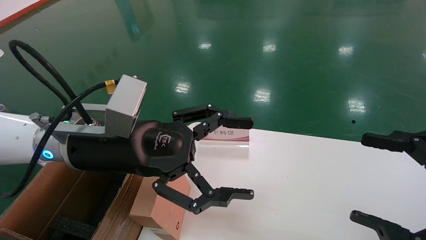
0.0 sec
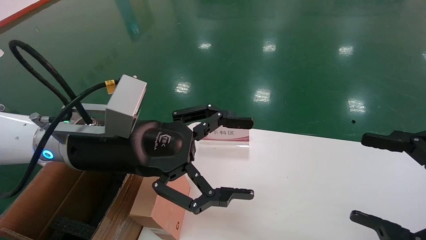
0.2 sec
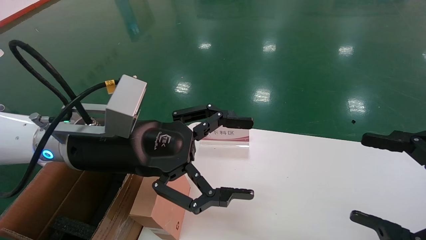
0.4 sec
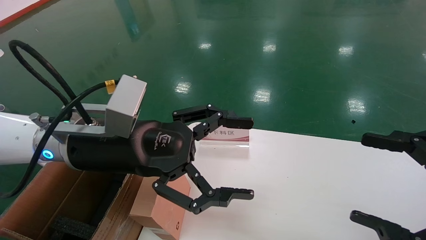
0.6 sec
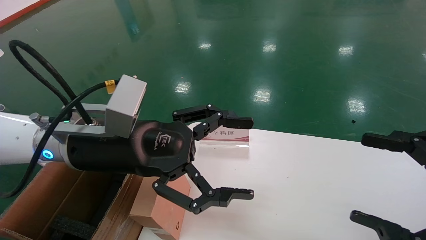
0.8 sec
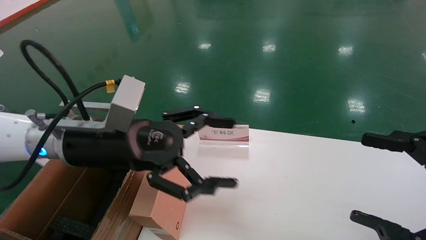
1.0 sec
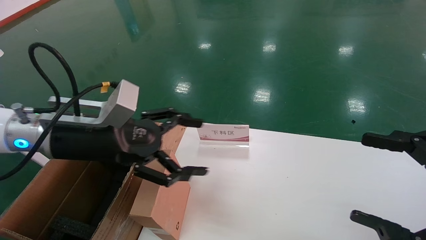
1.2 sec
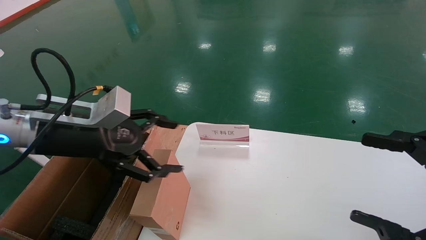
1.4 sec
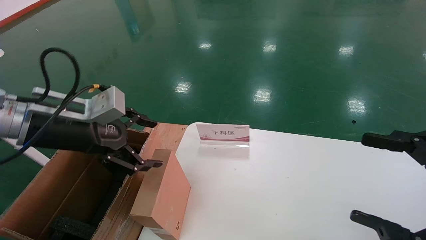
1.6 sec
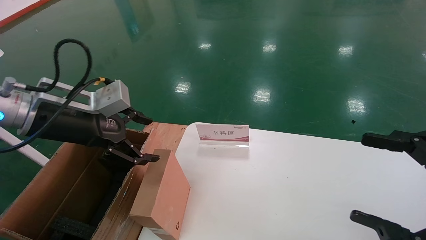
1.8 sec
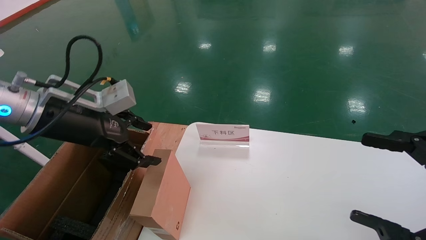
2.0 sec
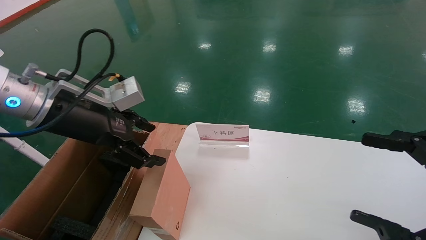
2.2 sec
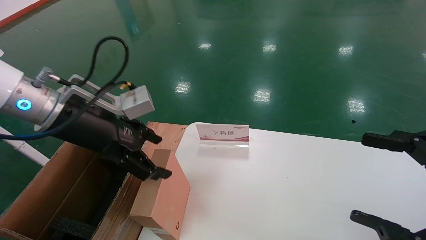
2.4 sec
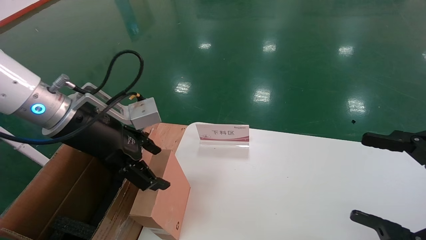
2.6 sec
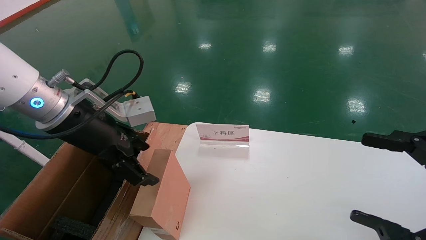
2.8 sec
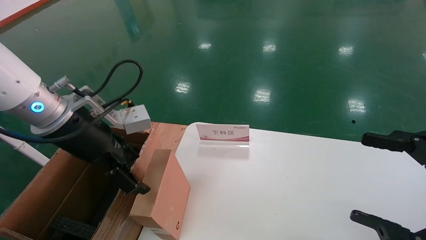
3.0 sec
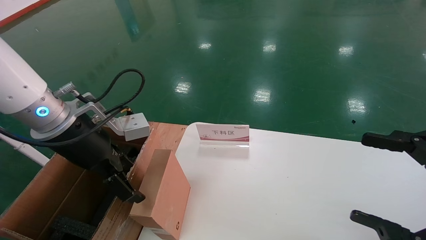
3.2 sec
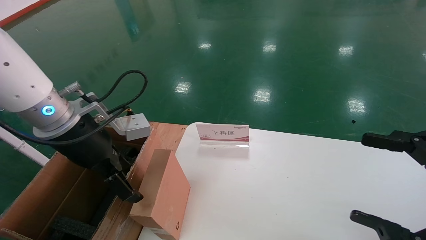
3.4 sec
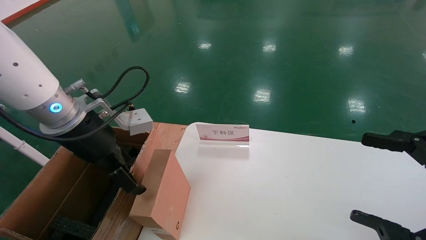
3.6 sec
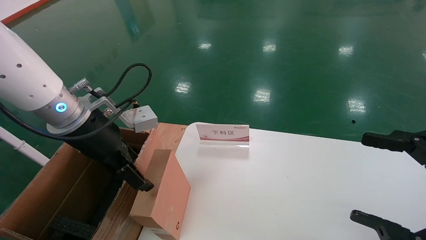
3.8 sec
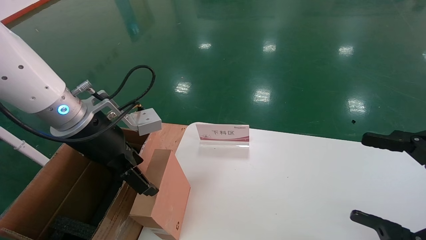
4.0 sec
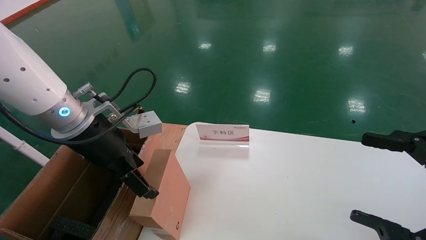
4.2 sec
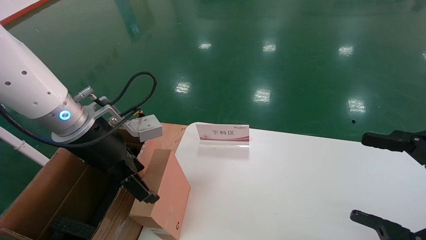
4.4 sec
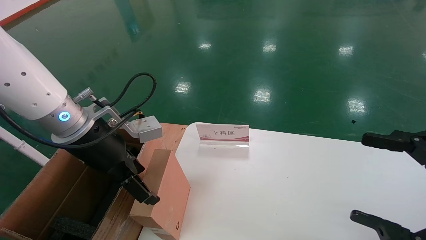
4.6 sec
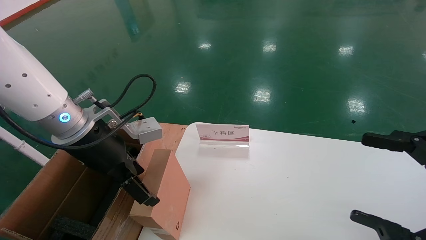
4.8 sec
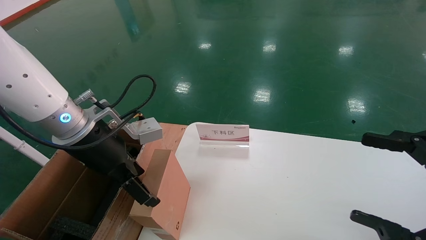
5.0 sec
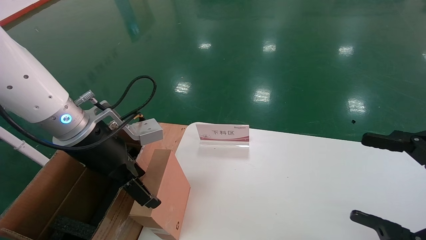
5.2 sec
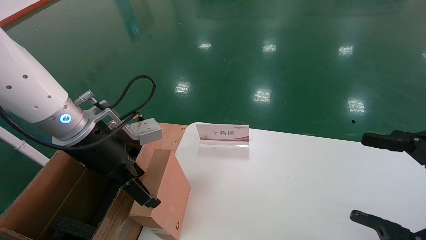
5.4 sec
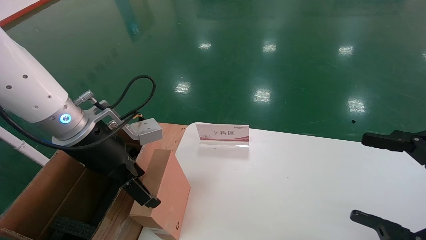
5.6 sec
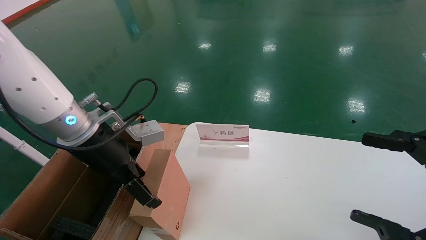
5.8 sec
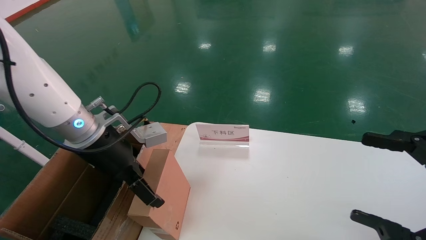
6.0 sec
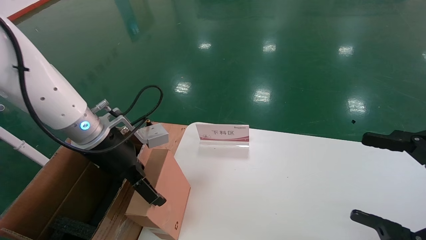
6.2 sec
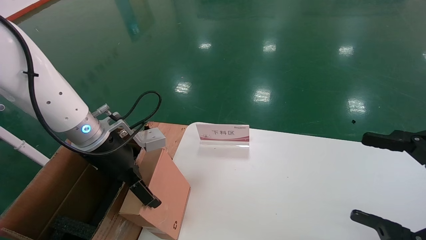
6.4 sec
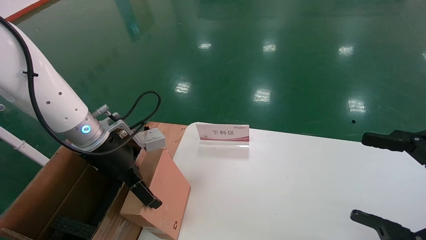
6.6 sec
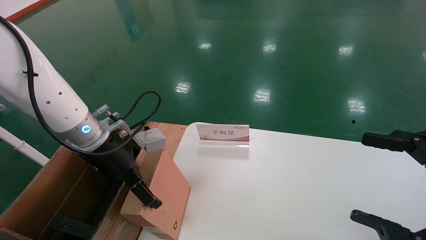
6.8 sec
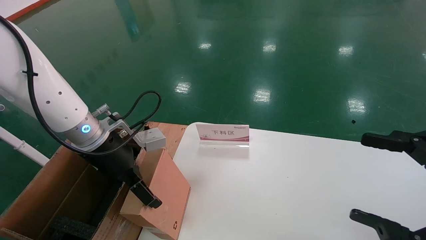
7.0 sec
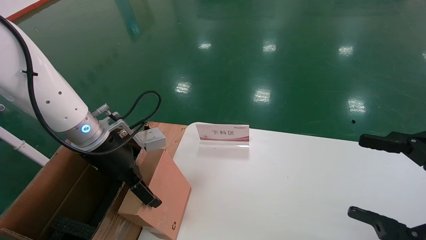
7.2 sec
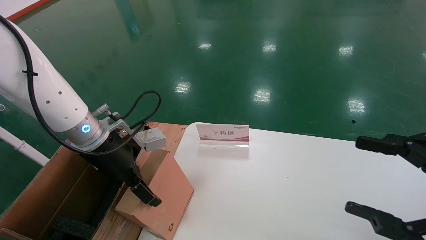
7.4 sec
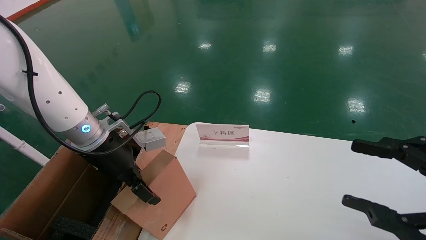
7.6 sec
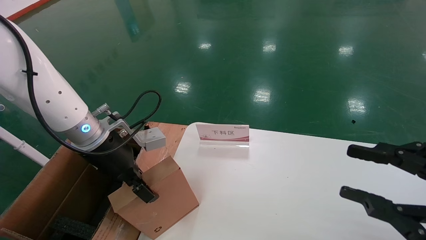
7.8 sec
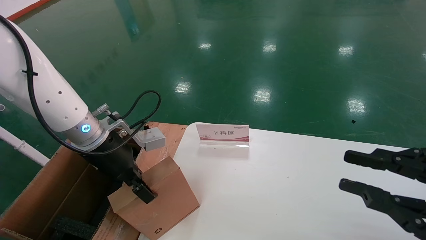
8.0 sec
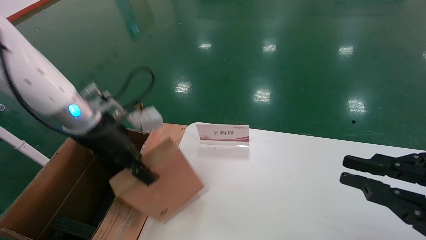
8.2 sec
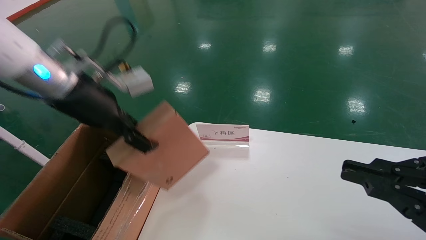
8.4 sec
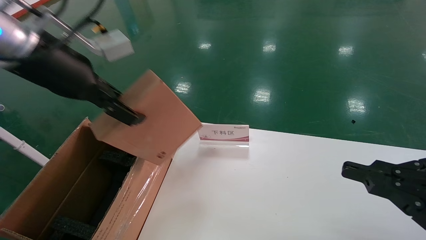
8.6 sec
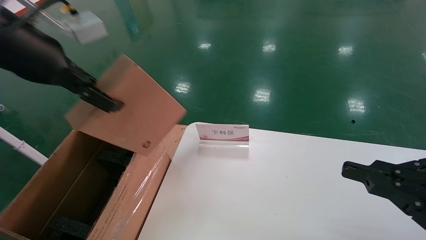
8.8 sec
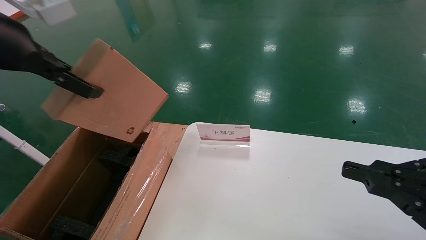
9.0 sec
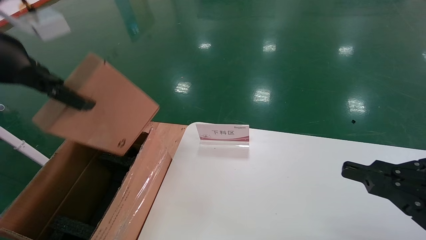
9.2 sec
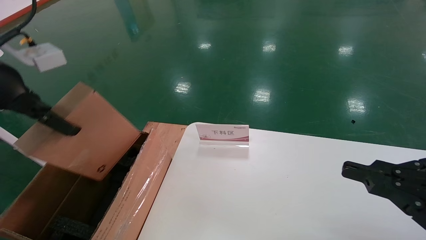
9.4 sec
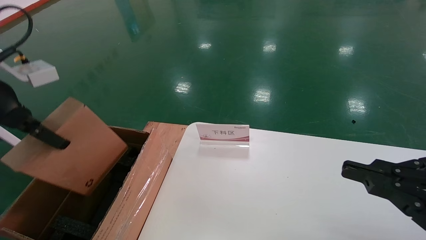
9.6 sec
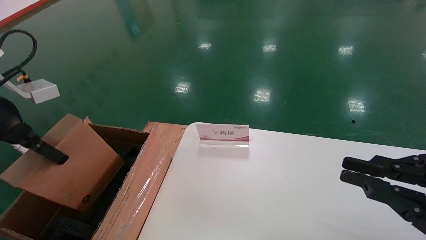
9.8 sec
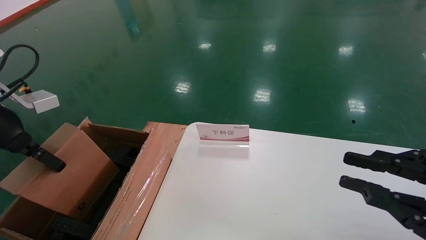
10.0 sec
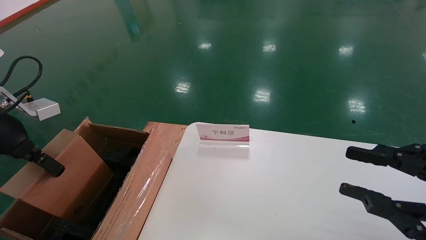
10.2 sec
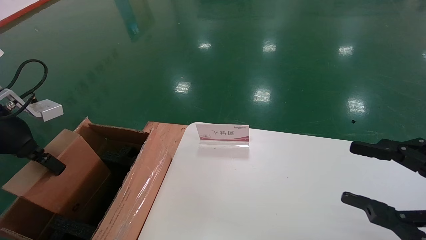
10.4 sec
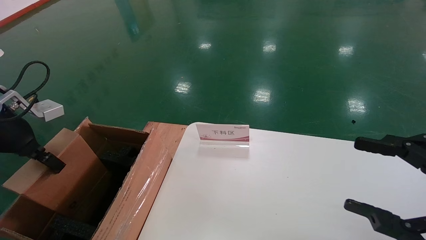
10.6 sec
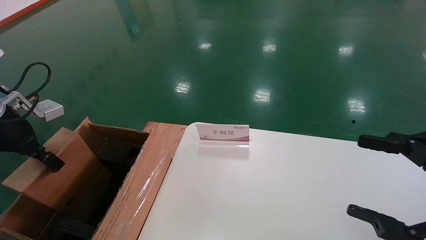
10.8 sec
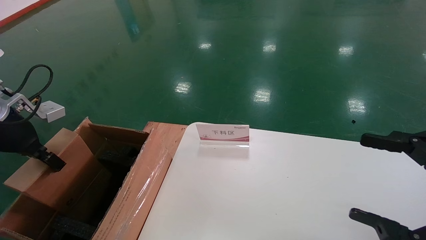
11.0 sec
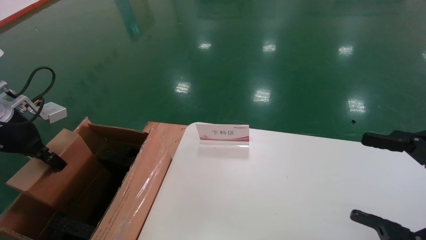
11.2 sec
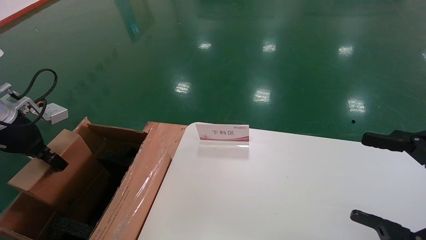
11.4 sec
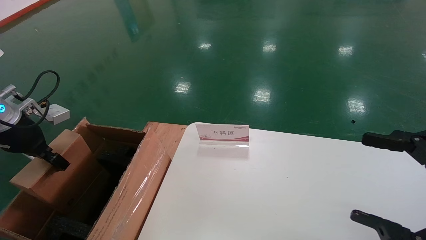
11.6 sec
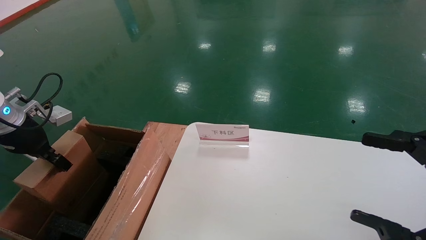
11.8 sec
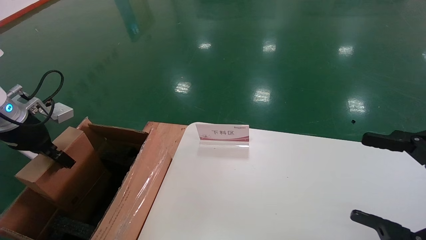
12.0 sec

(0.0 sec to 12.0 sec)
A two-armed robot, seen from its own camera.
Task of the whole recording: pick up the small cardboard box and load it into the large cardboard box.
Step, 1.2 sec - 7.6 sec: Pick up the mouse and power cord box.
0.0 sec - 1.6 sec: The left gripper shifts some 10 cm to the left.
3.0 sec - 6.0 sec: The grippers make only small movements.
6.0 sec - 7.6 sec: The left gripper closes up.
7.6 sec - 9.0 sec: The right gripper closes up; the left gripper heads upward, backward and to the left, covering roughly 25 cm, and closes its fingers.
9.0 sec - 10.4 sec: The right gripper opens up, while the left gripper is displaced downward and to the left by some 15 cm.
10.4 sec - 12.0 sec: The left gripper heads forward, covering some 5 cm. The right gripper opens.

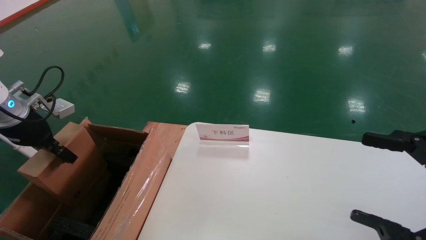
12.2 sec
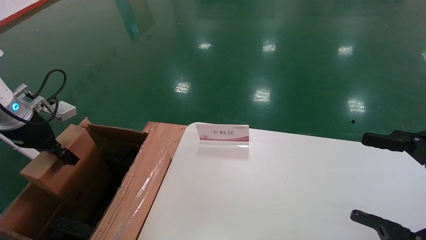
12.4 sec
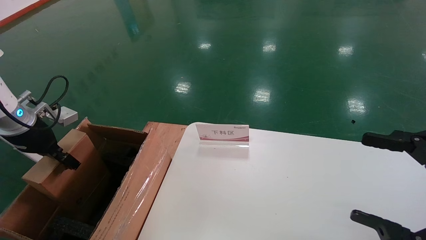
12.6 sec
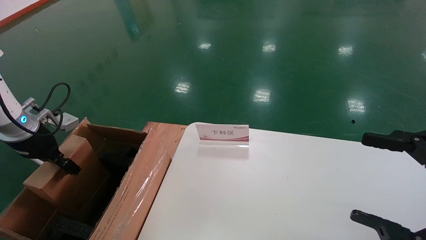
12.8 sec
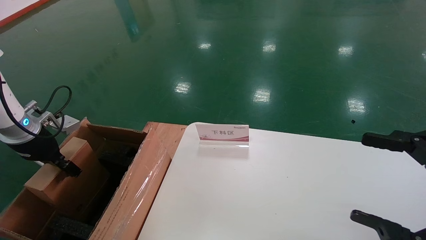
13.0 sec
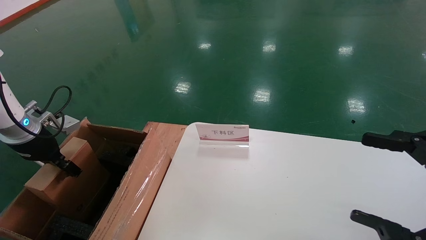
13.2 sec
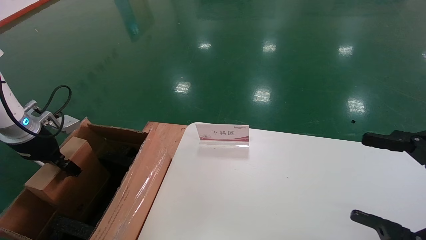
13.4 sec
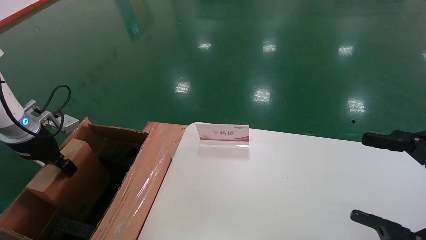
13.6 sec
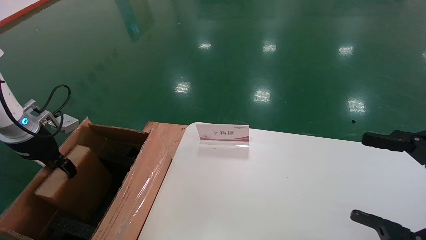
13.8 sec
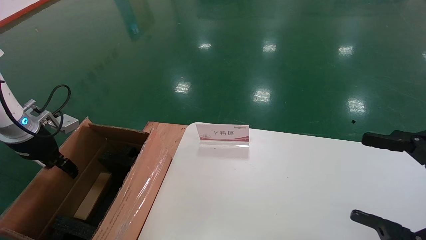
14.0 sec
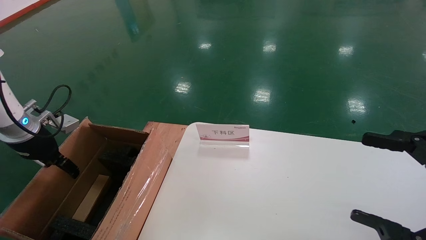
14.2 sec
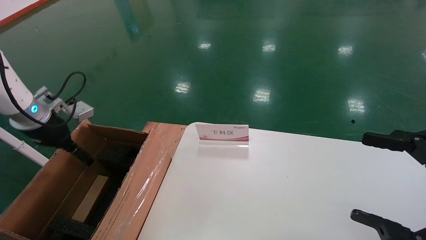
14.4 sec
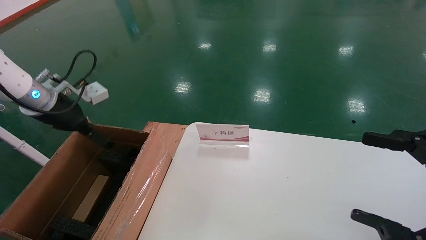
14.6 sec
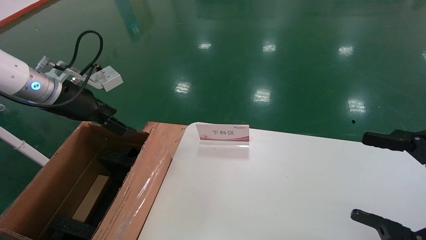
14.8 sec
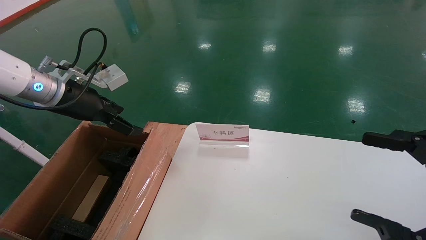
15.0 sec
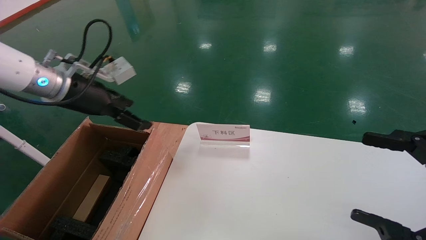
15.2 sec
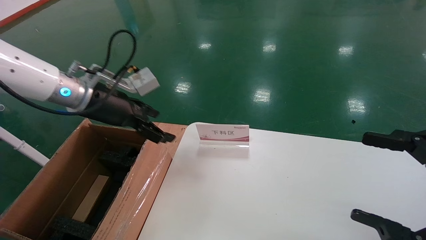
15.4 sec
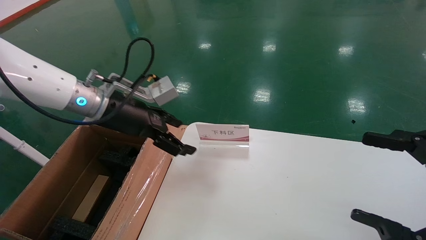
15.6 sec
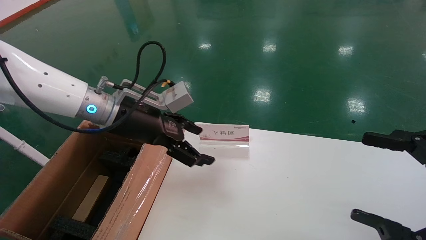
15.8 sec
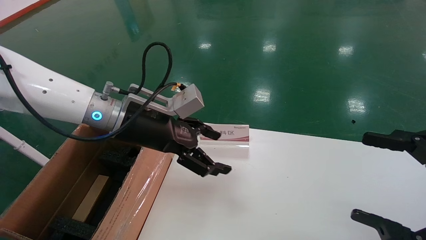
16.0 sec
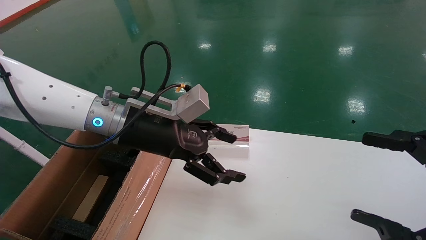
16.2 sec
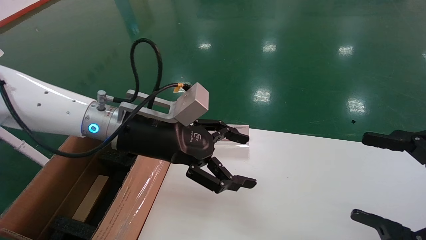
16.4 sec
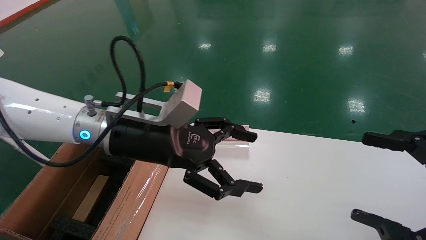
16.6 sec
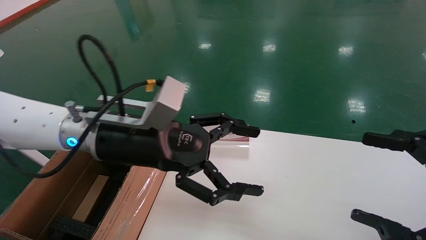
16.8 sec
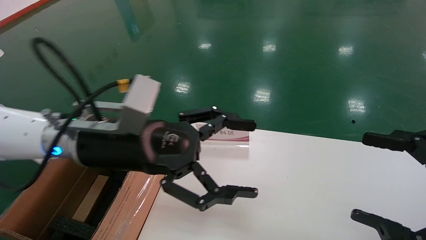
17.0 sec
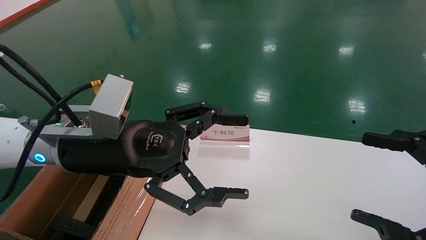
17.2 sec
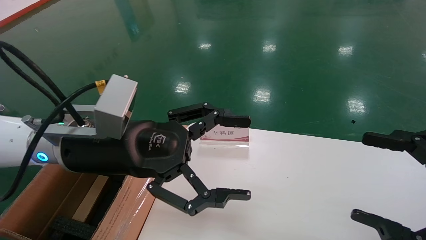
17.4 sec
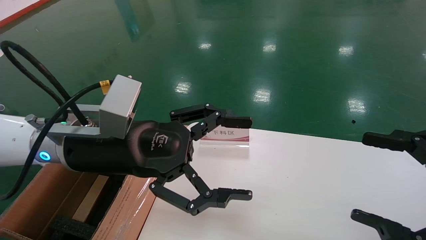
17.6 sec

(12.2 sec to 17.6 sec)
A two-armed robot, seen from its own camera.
Task of the whole recording: pick up the small cardboard box and load it into the large cardboard box.
12.2 sec - 13.6 sec: The grippers stay close to where they were, moving slightly.
13.6 sec - 15.0 sec: The left gripper heads to the right and upward, covering some 15 cm, and opens.
15.0 sec - 16.2 sec: The left gripper is displaced to the right by roughly 15 cm.
16.2 sec - 17.6 sec: The left gripper heads backward, covering approximately 5 cm.
